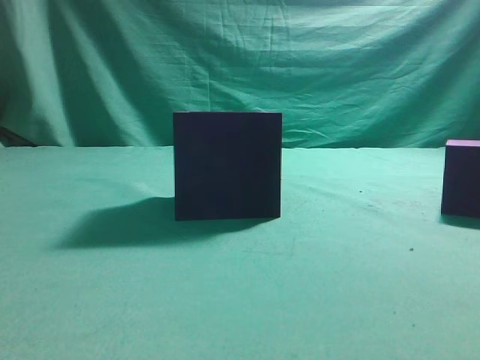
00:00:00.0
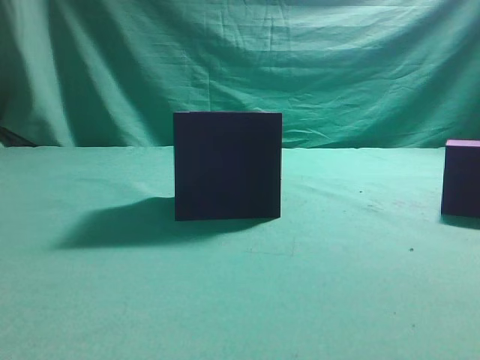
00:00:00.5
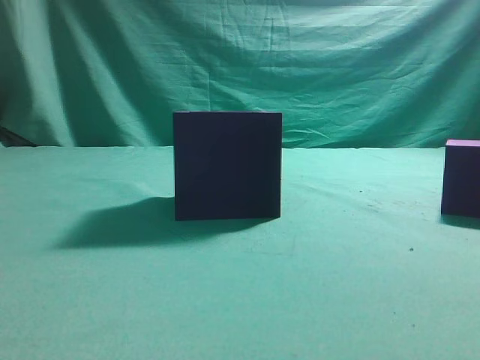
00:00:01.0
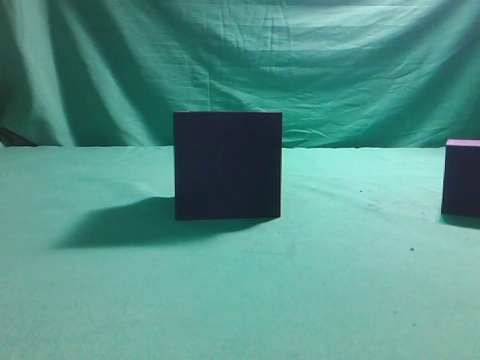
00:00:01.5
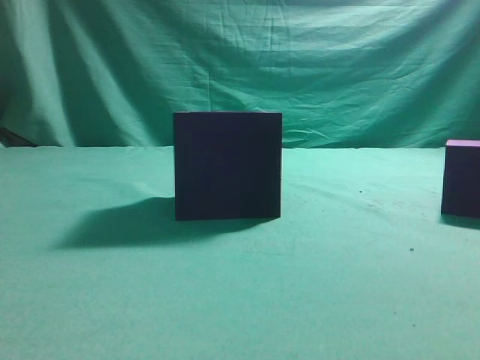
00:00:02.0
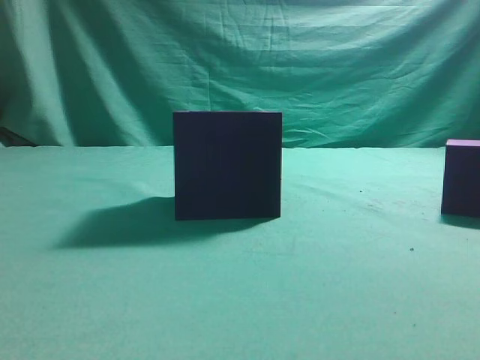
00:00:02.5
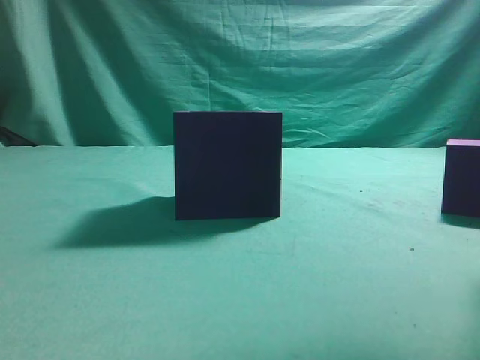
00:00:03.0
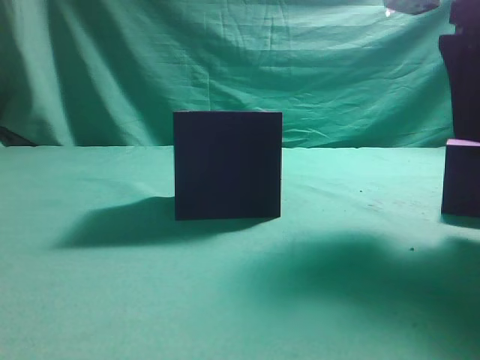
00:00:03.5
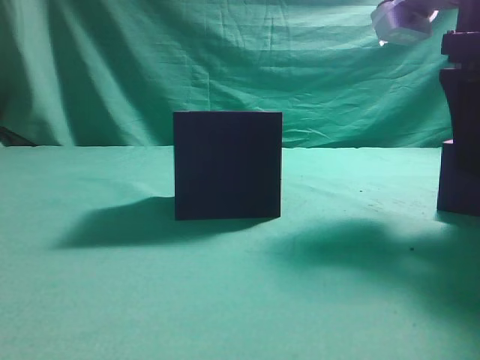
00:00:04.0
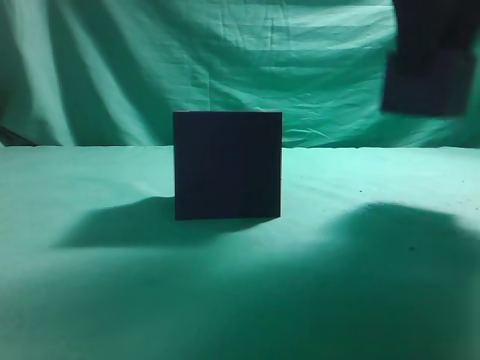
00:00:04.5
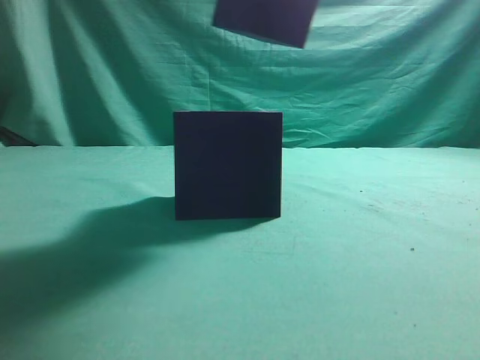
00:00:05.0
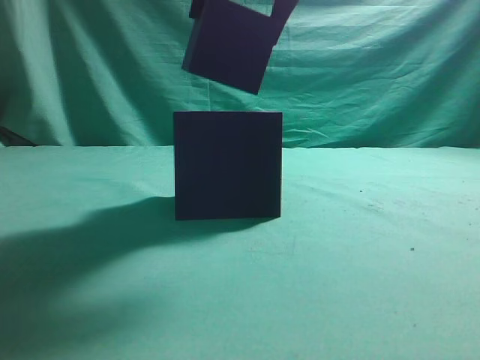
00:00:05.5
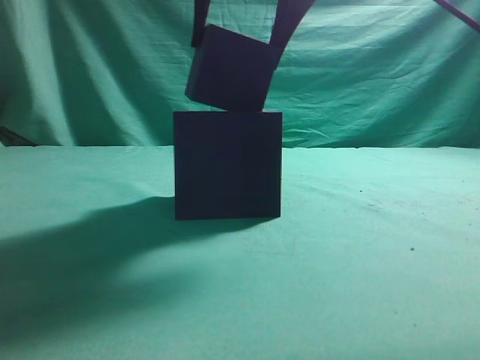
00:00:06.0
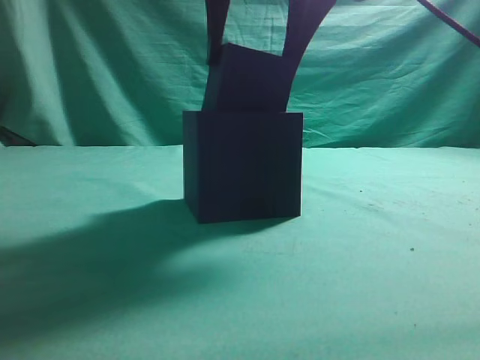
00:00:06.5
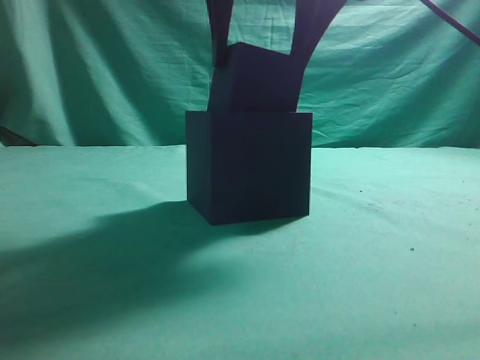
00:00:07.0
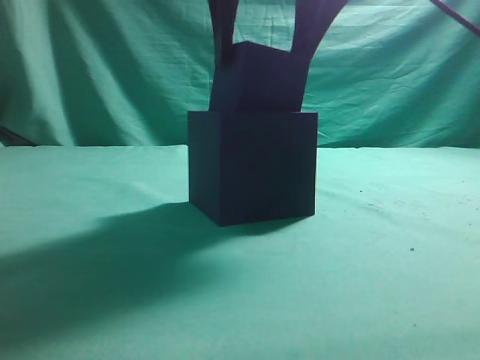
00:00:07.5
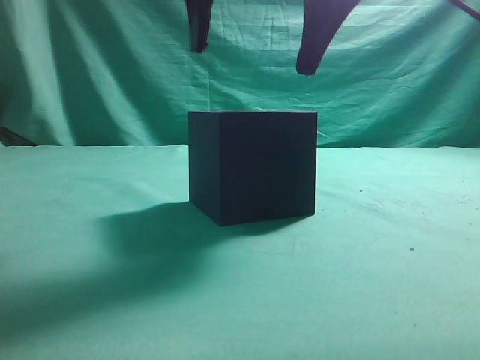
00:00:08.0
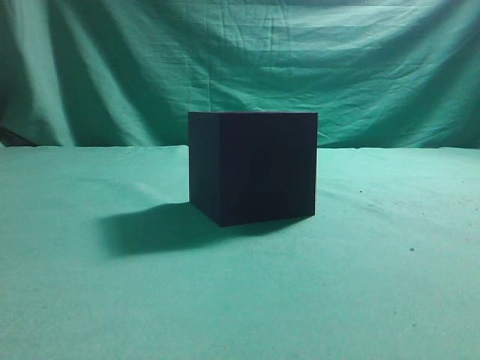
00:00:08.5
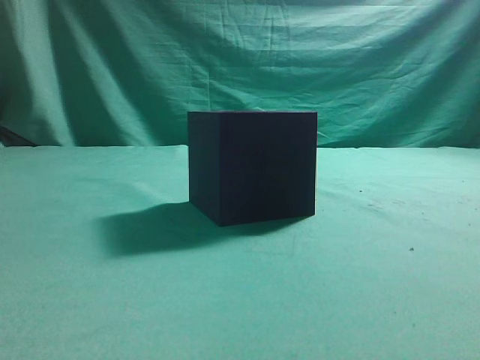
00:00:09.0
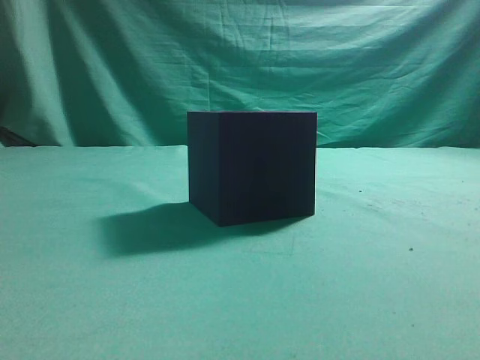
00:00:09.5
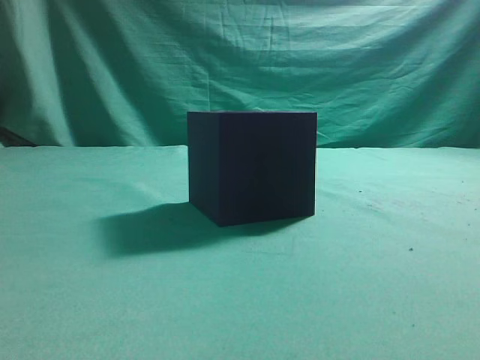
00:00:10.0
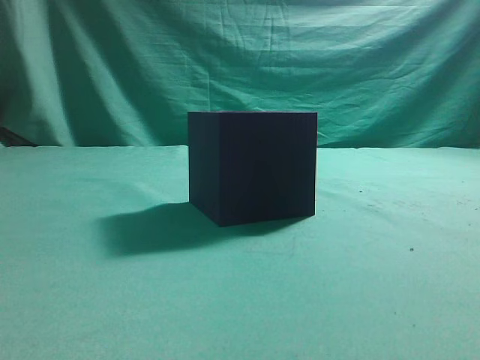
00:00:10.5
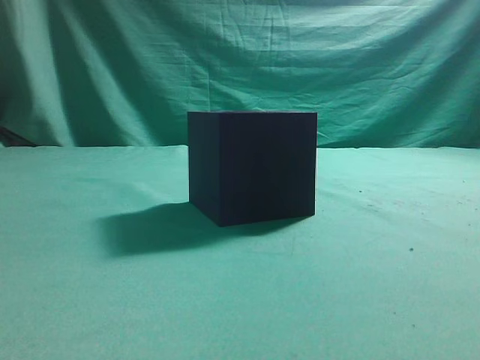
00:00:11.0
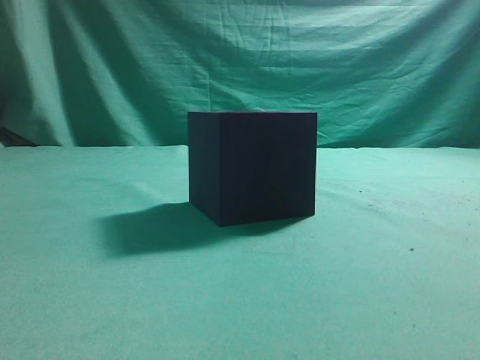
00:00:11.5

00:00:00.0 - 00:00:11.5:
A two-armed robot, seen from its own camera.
Task of the whole recording: pick up the cube block and place it into the cube groove.
Step, 00:00:00.0 - 00:00:04.0: Grasp the cube.
Step, 00:00:04.5 - 00:00:08.0: Place cube into the cube-shaped recess.
00:00:02.0 - 00:00:04.0: The right gripper moves forward and to the left, some 25 cm, and opens its fingers.
00:00:04.0 - 00:00:06.0: The right gripper is displaced to the left and upward by some 20 cm.
00:00:06.0 - 00:00:07.5: The grippers make only small movements.
00:00:07.5 - 00:00:09.5: The right gripper is displaced backward, to the right and upward by some 35 cm, and closes up.
